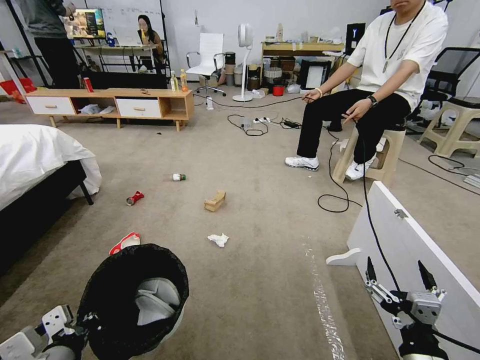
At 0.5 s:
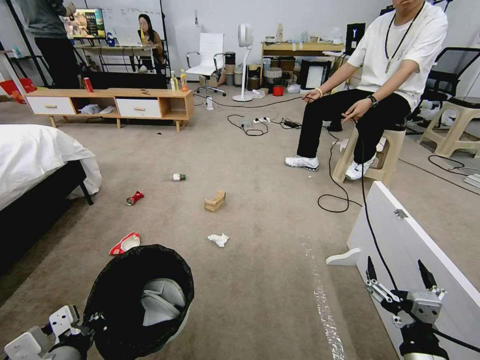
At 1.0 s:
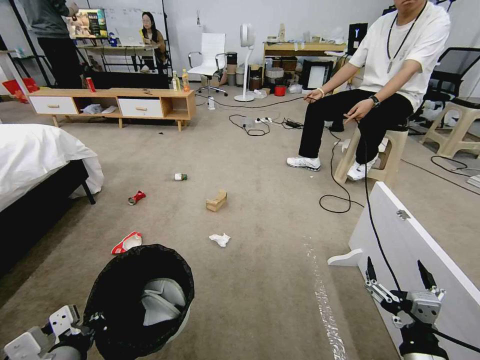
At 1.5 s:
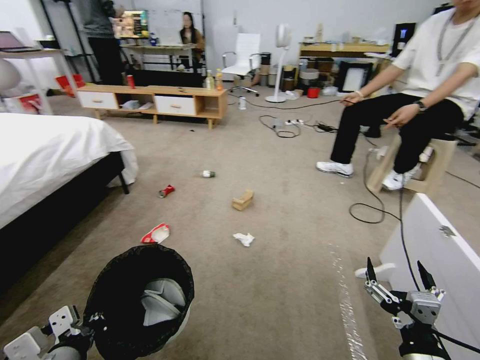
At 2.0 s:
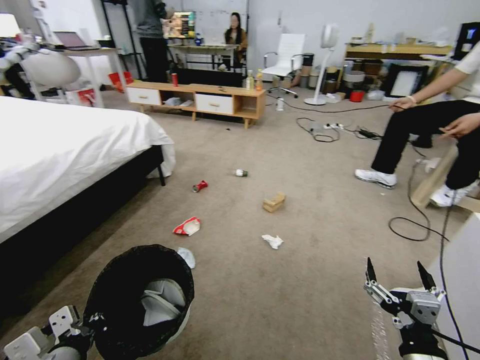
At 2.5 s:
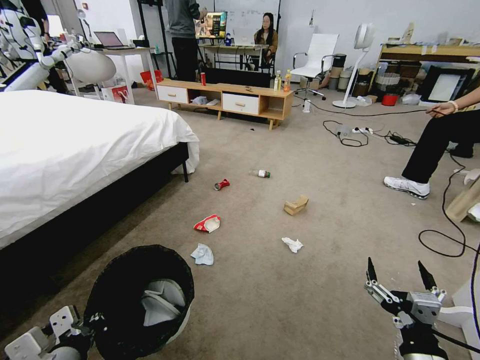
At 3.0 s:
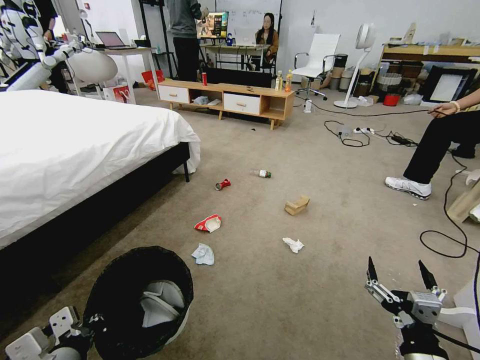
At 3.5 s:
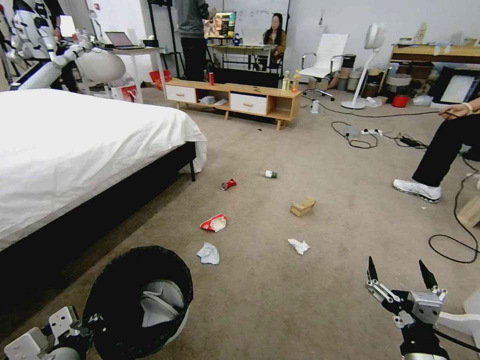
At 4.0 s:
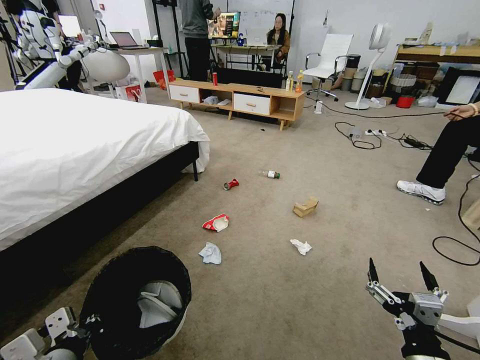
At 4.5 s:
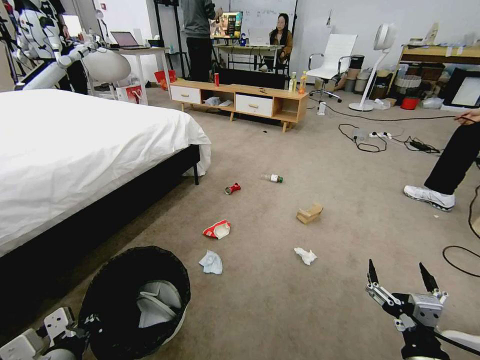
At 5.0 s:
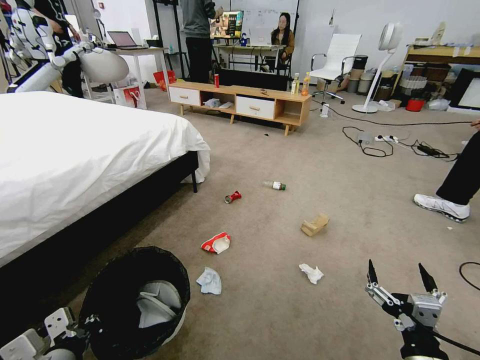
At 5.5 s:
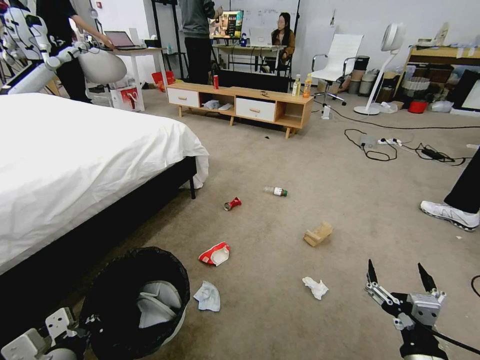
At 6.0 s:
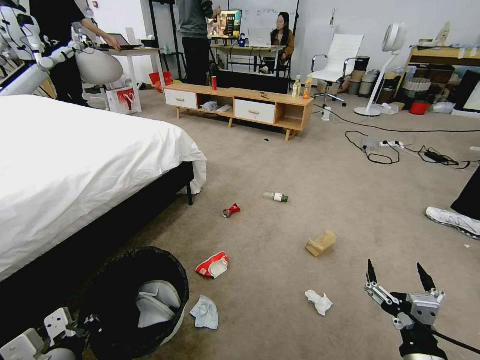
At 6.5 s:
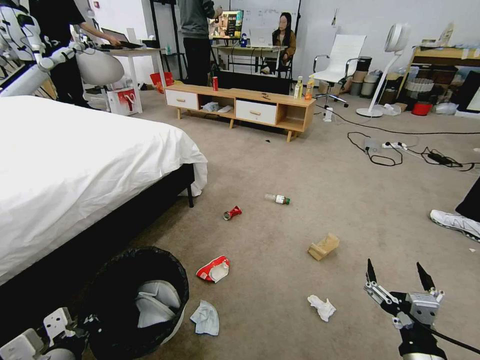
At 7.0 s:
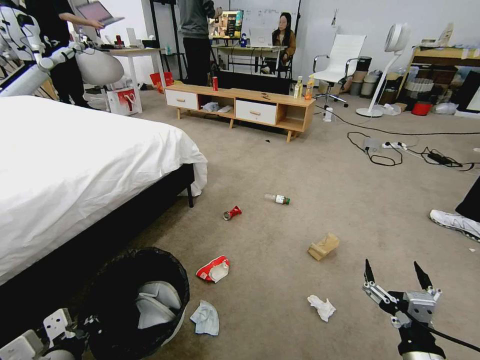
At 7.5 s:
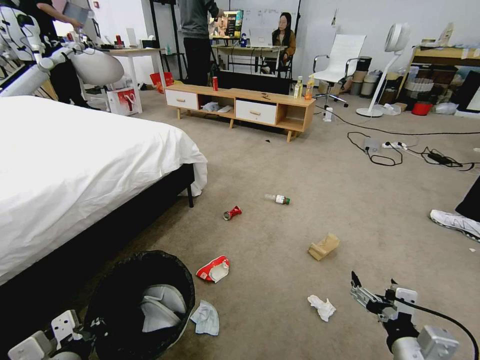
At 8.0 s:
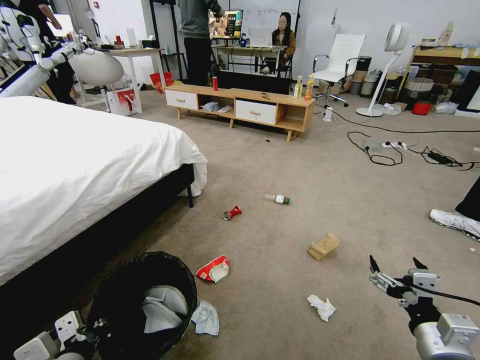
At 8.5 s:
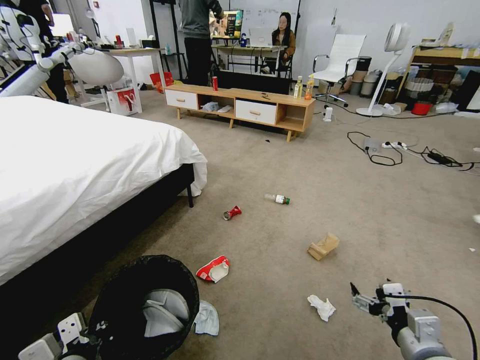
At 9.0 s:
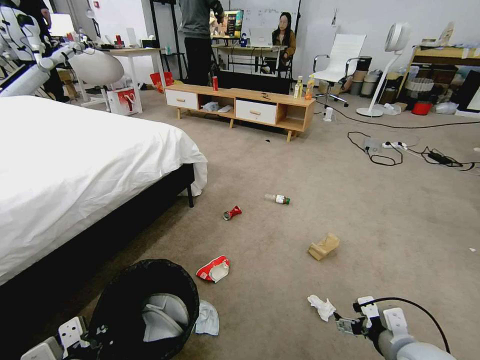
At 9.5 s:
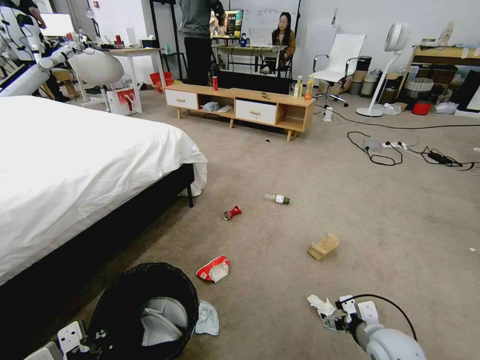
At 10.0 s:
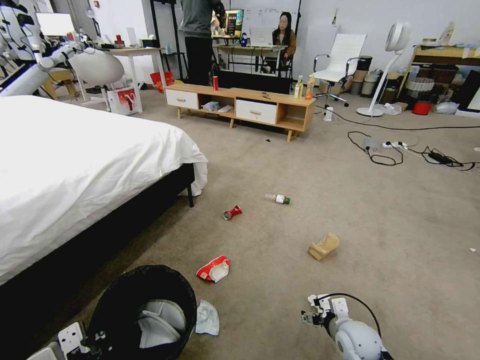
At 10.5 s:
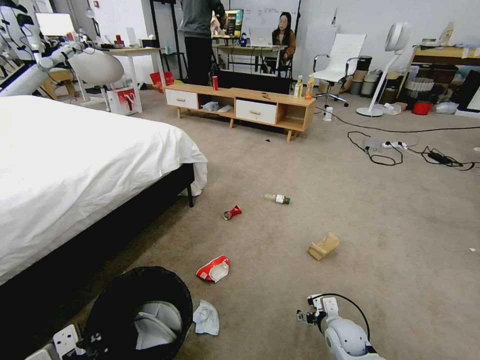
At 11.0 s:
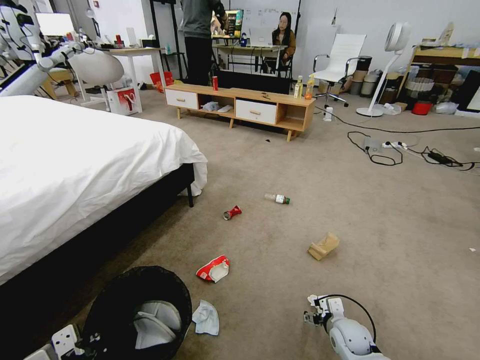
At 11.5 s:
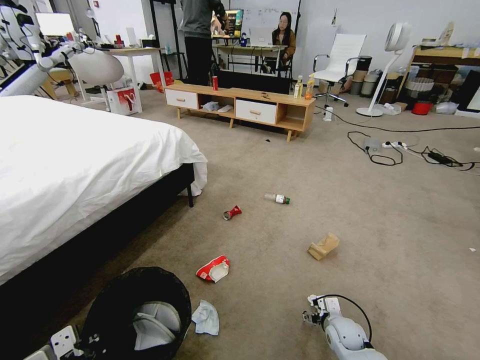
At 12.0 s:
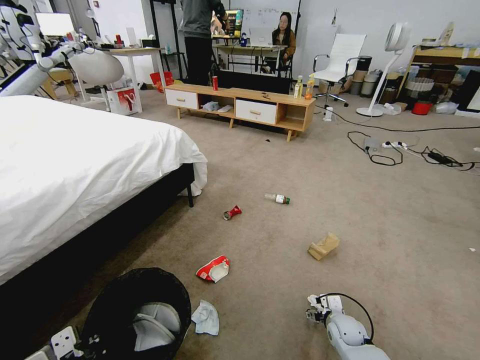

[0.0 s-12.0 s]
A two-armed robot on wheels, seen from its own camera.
Task of the whole recording: Pick up the trash bin and place the garbage on the floor into it.
6.0 to 8.0 s: The right gripper moves some 5 cm.
8.0 to 10.0 s: The right gripper is displaced downward and forward by some 20 cm.
10.0 to 12.0 s: The right gripper shifts approximately 10 cm downward.

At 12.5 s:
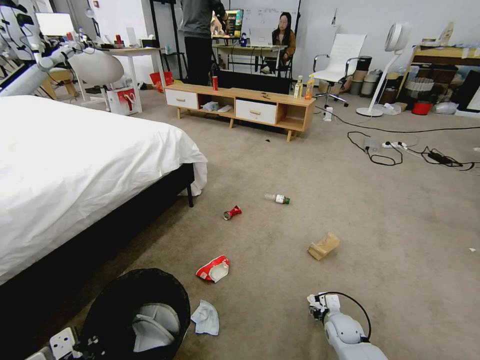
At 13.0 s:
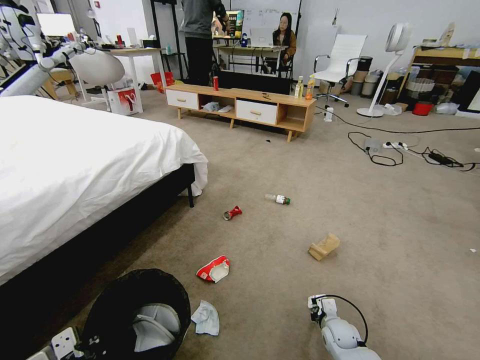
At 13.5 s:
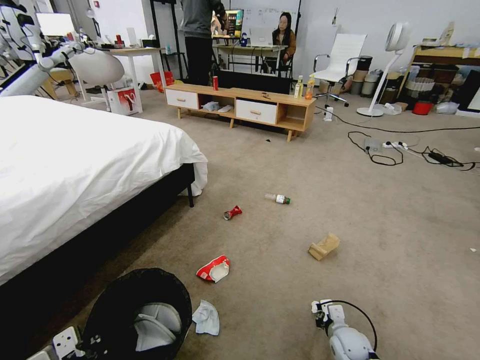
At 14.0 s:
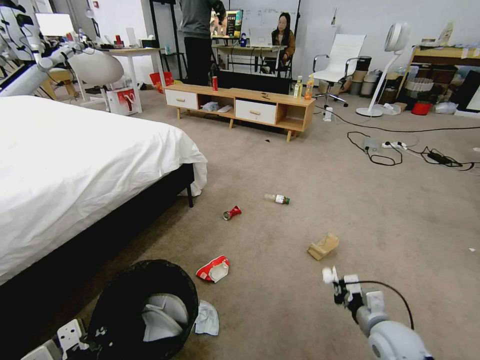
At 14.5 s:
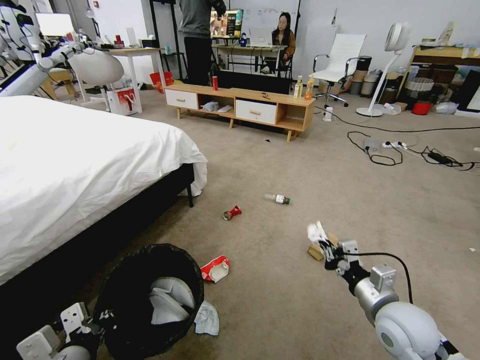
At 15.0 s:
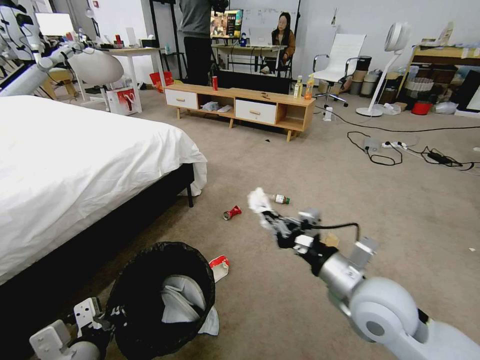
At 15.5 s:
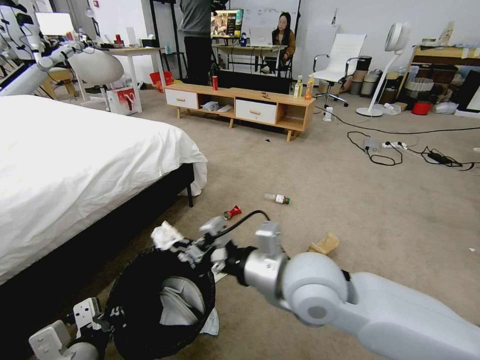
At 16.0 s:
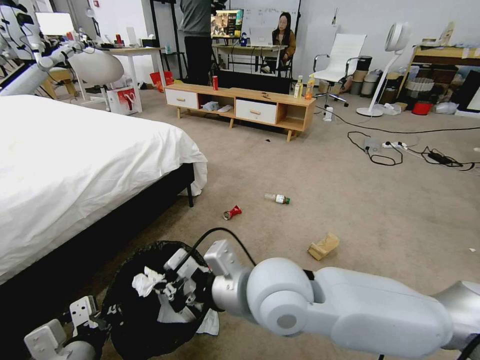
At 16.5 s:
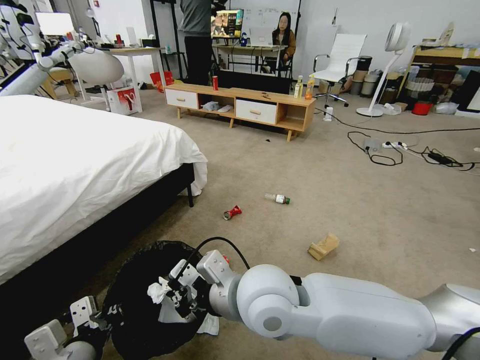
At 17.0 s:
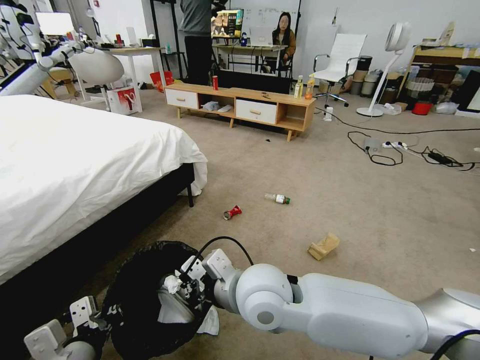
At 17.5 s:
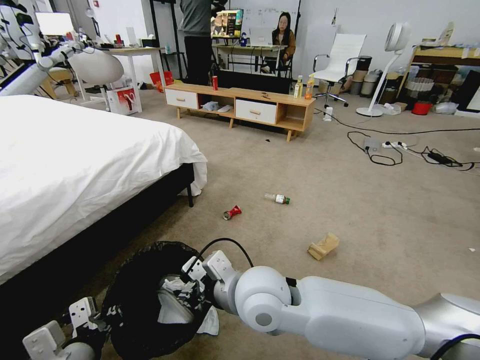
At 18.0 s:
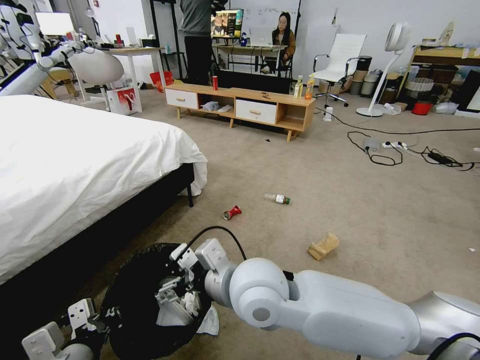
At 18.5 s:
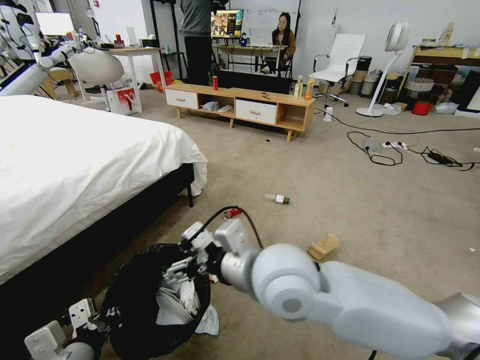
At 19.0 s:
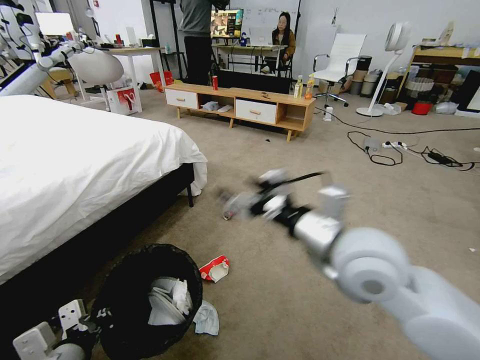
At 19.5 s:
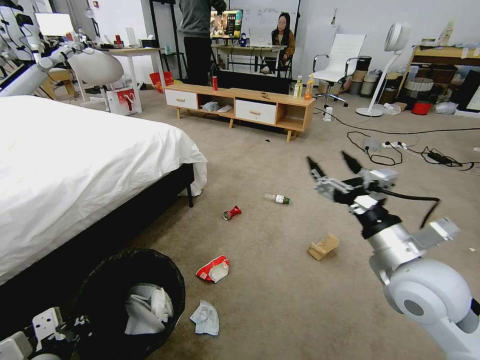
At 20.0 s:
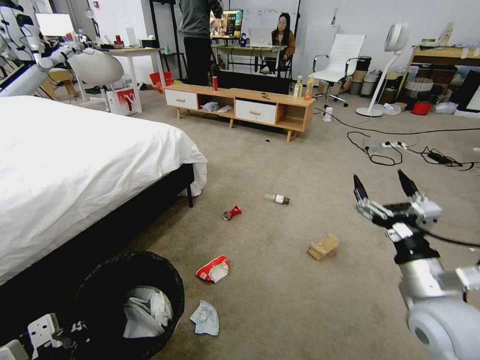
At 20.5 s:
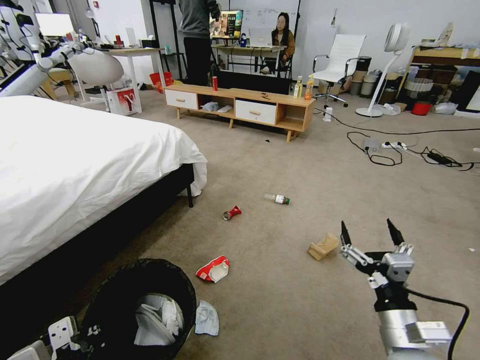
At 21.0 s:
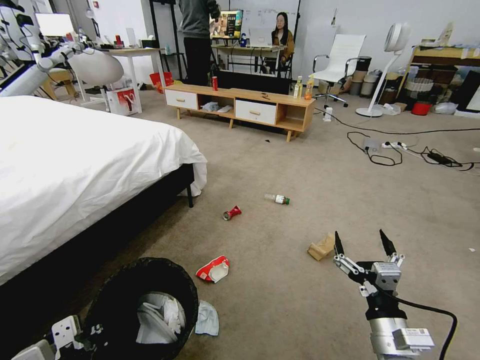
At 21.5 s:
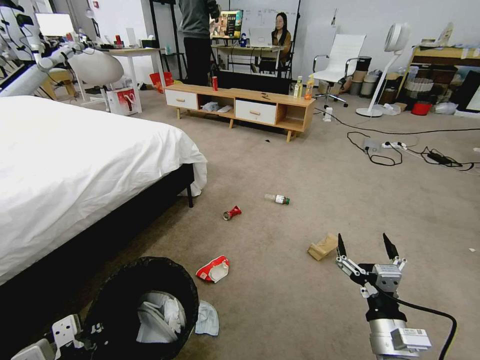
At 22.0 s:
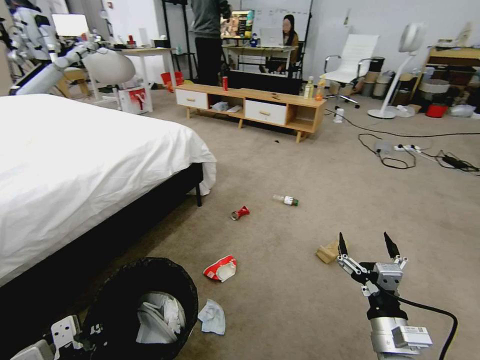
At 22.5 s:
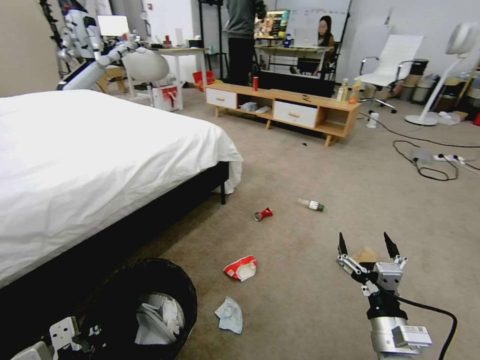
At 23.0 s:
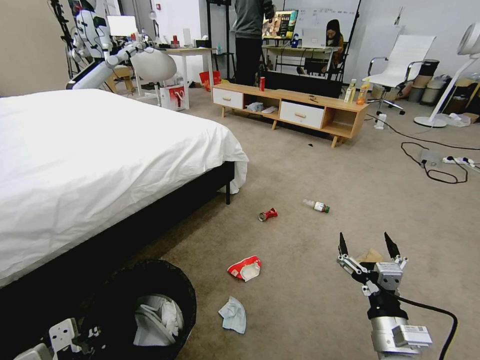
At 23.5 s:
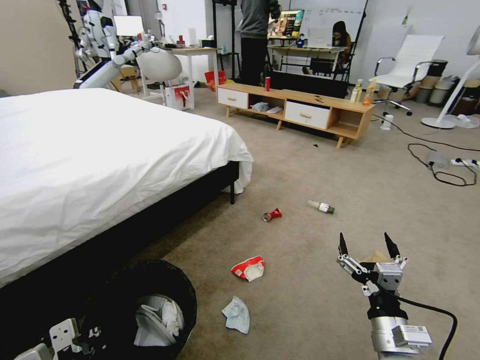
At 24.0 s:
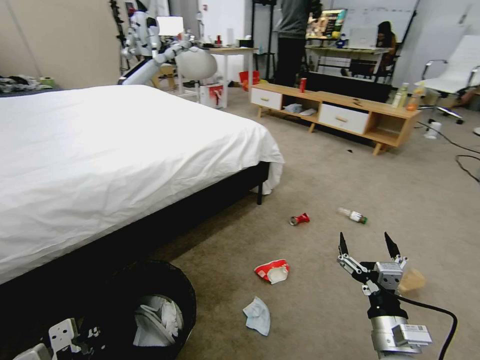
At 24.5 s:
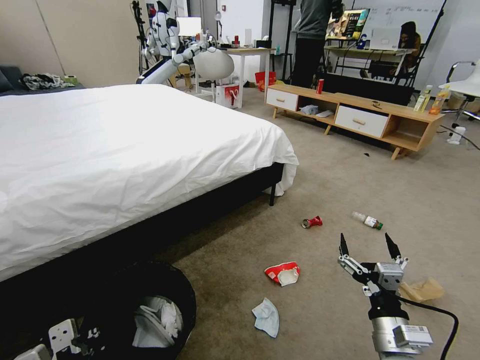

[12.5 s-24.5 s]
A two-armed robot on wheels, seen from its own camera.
Task of the whole recording: Pick up the trash bin and place the garbage on the floor into it.
12.5 to 14.5 s: The right gripper shifts roughly 20 cm upward and backward, and closes its fingers.
14.5 to 16.5 s: The right gripper shifts approximately 35 cm to the left and upward.
16.5 to 18.5 s: The right gripper moves some 5 cm, and opens up.
18.5 to 20.5 s: The right gripper shifts about 30 cm to the right.
20.5 to 22.5 s: The right gripper travels downward and backward by roughly 15 cm.

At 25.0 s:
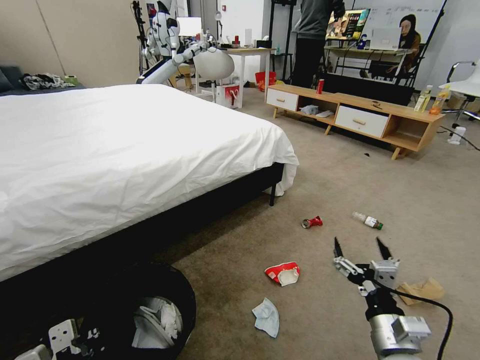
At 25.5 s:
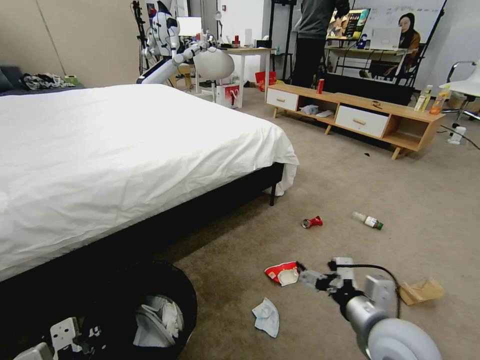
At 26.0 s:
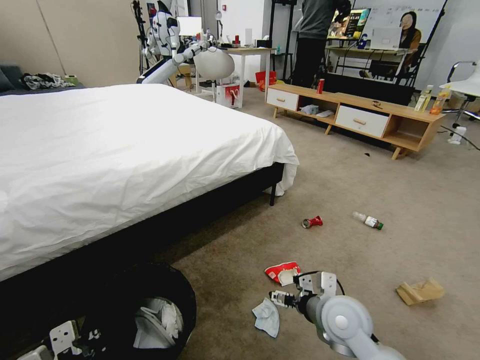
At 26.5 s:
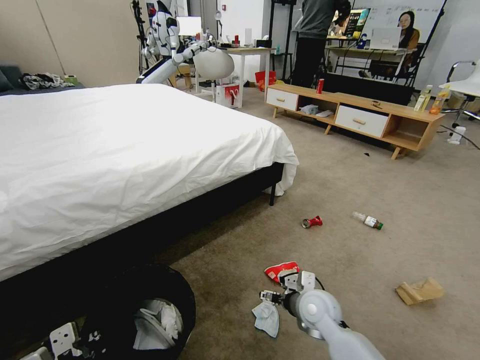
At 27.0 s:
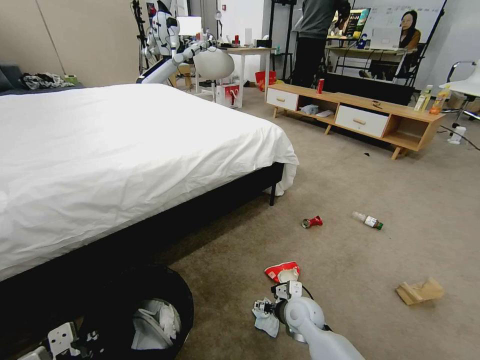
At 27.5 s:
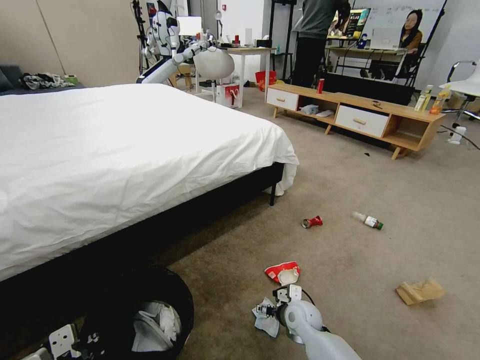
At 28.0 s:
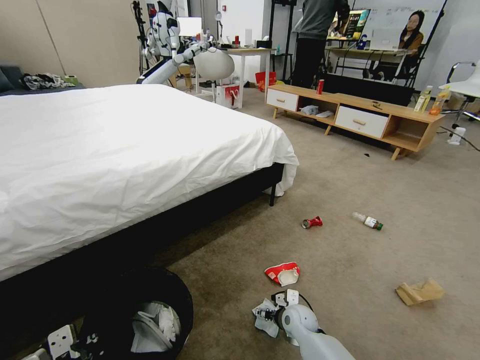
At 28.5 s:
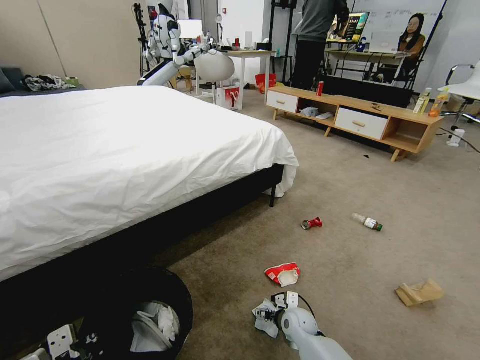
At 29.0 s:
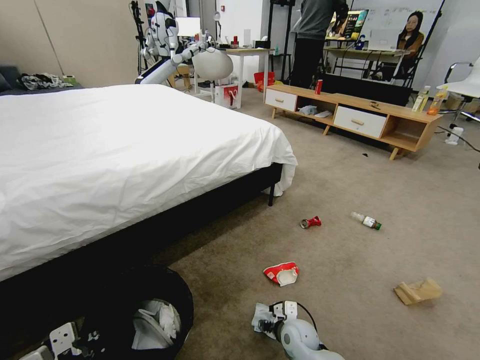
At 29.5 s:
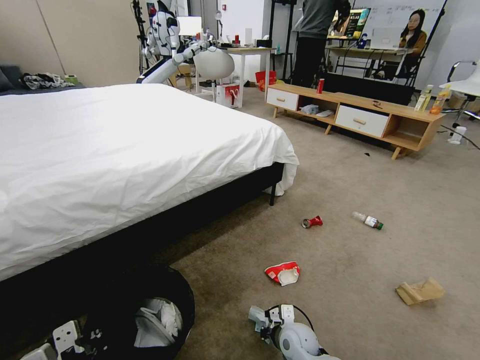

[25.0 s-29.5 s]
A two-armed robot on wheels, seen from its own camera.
Task of the whole recording: Pick up the trash bin and place the garbage on the floor into it.
25.0 to 27.0 s: The right gripper is displaced forward, downward and to the left by approximately 25 cm.
27.0 to 29.5 s: The right gripper heads downward, covering some 5 cm, and closes its fingers.
